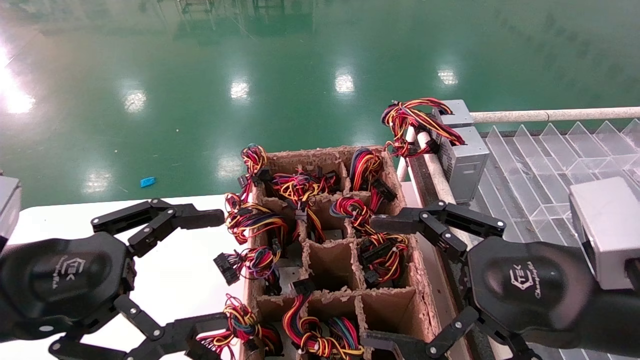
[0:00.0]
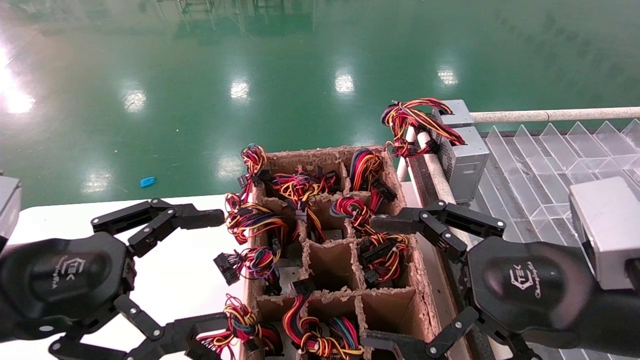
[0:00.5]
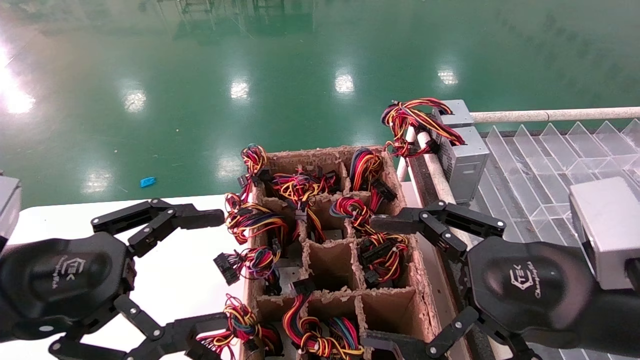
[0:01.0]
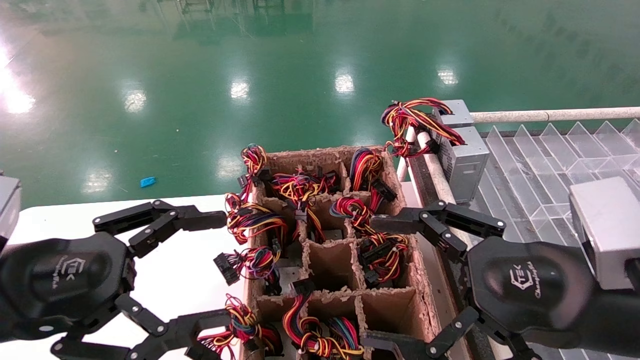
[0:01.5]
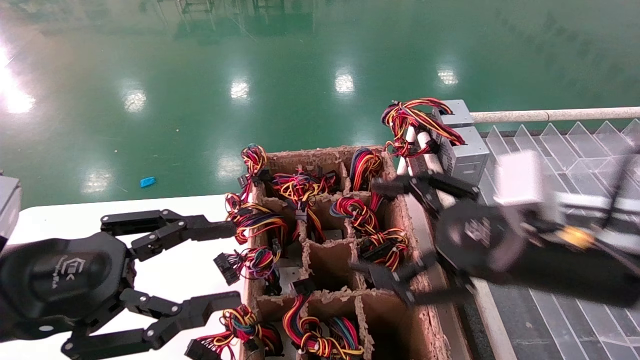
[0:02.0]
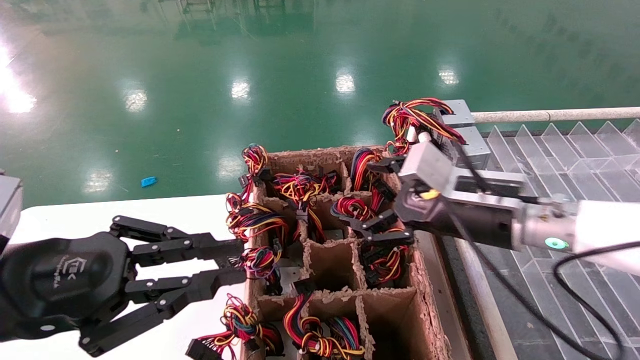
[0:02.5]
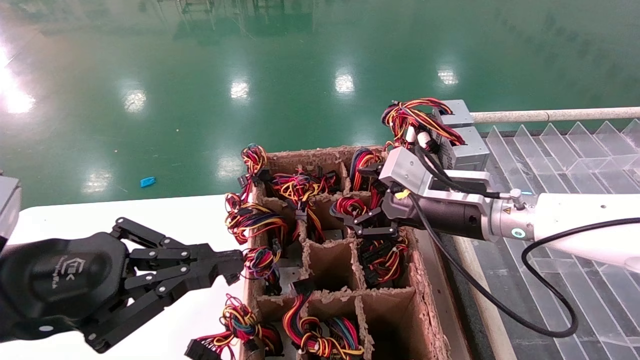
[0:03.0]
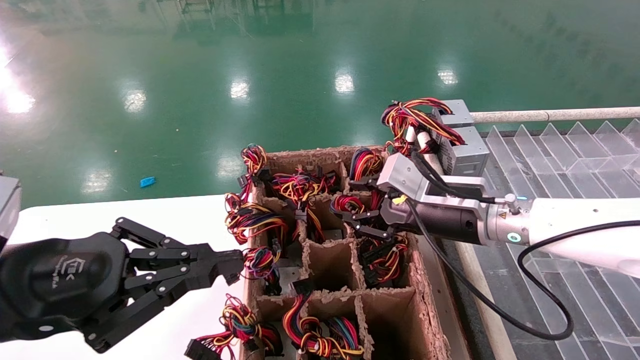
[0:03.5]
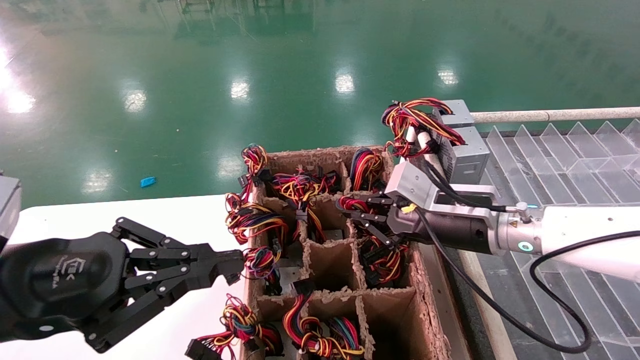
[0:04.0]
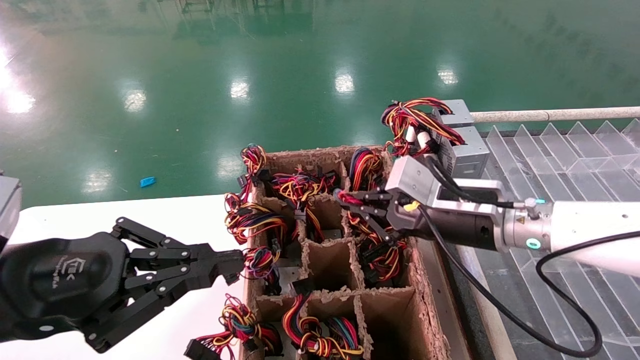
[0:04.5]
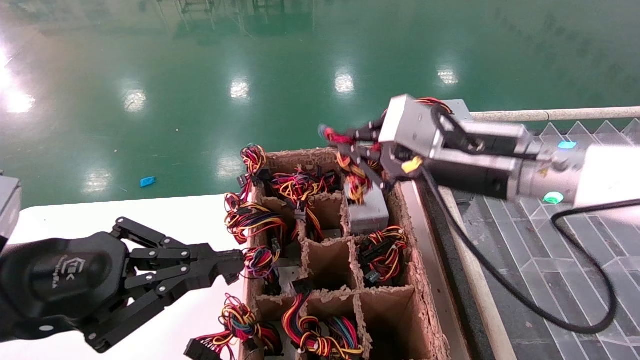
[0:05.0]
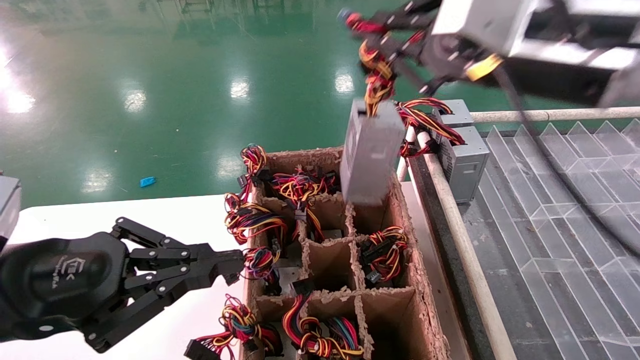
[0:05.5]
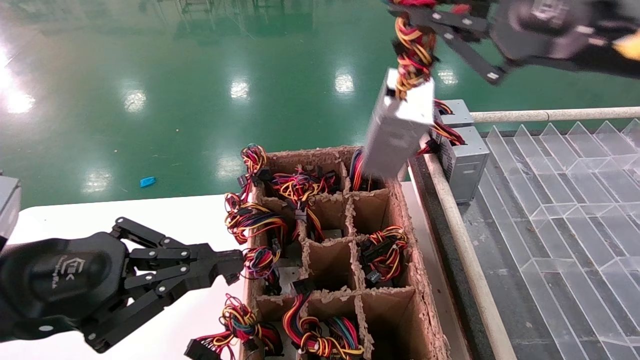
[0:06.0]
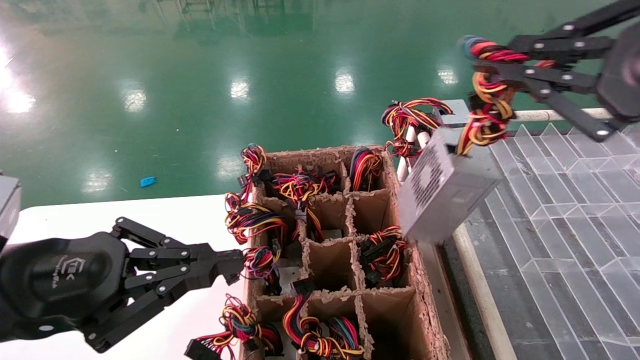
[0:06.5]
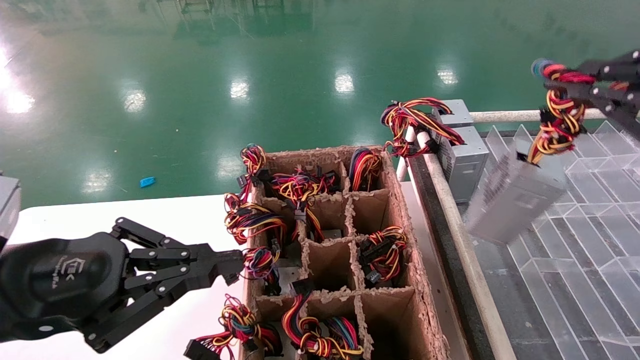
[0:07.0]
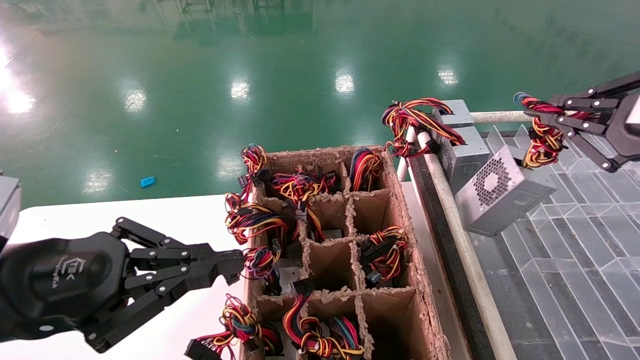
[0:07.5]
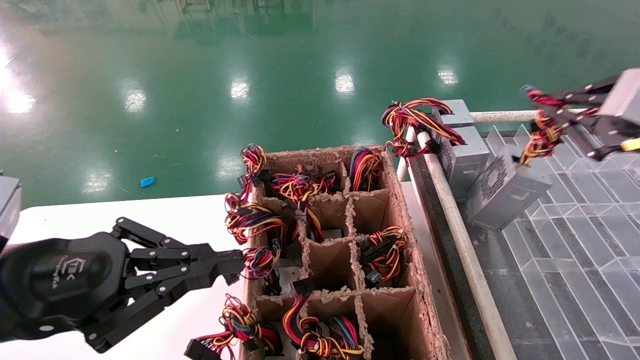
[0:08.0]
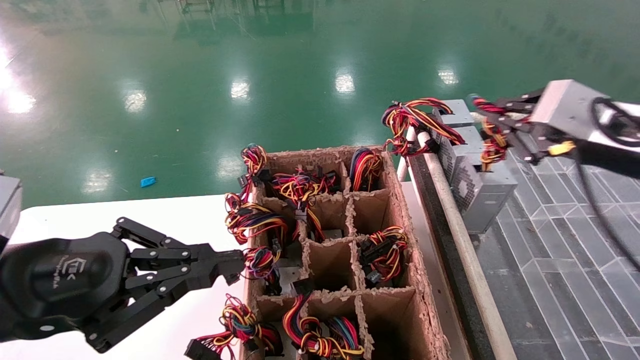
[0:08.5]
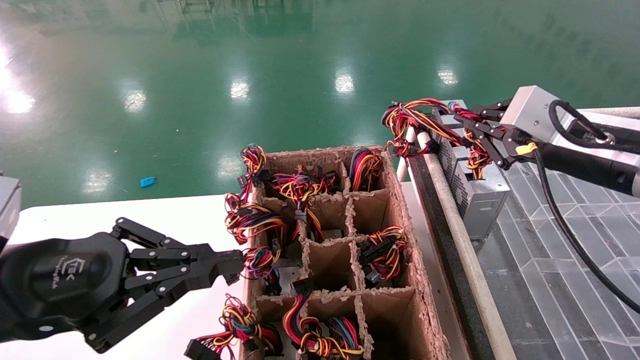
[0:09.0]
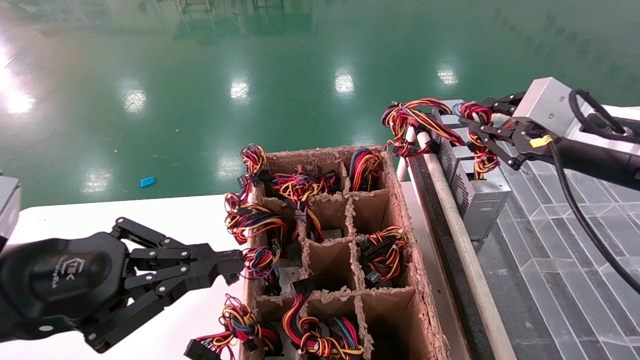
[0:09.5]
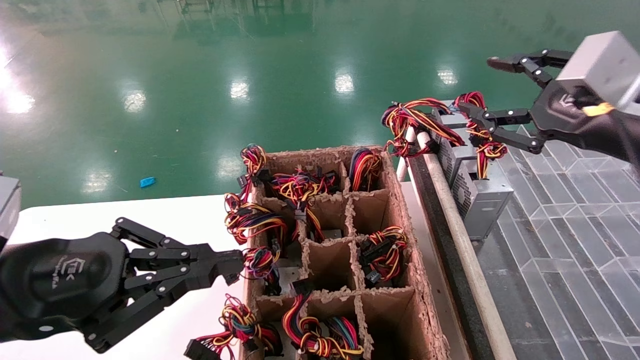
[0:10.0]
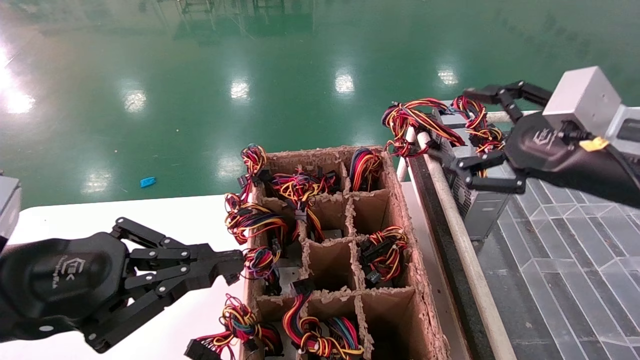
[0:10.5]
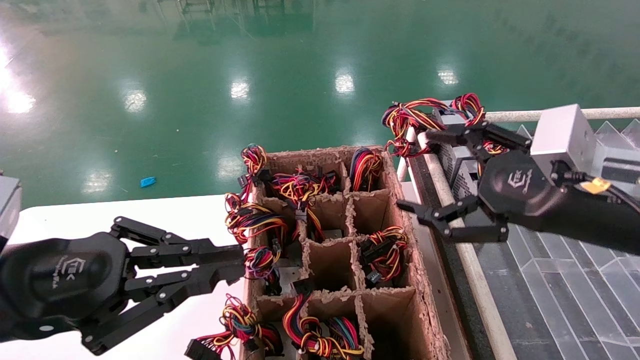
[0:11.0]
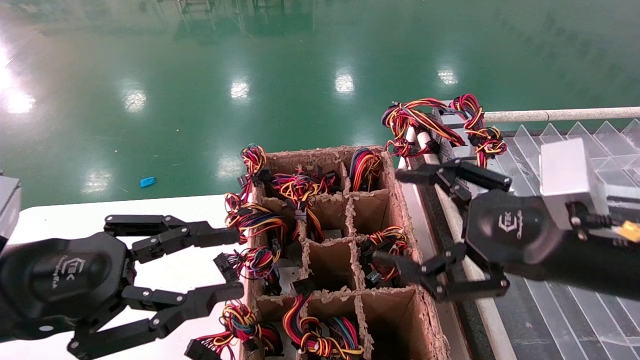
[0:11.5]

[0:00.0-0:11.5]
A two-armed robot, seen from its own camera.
Step, 0:02.5 to 0:04.0: Grab the main unit power supply from the containment box.
Step, 0:04.5 to 0:10.0: Place the main unit power supply in the designated area.
0:00.0 to 0:02.0: The right gripper shifts roughly 5 cm forward.
0:02.0 to 0:04.0: The left gripper closes up. The right gripper shifts roughly 10 cm forward, and closes.
0:04.0 to 0:06.0: The right gripper moves upward and backward, roughly 25 cm.
0:06.0 to 0:07.5: The right gripper is displaced to the right and downward by approximately 15 cm.
0:07.5 to 0:09.5: The right gripper is displaced forward and to the left by roughly 10 cm.
0:09.5 to 0:11.5: The right gripper goes about 10 cm backward, to the left and downward, and opens up.

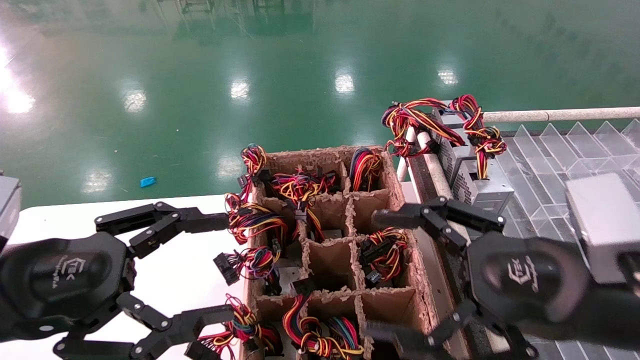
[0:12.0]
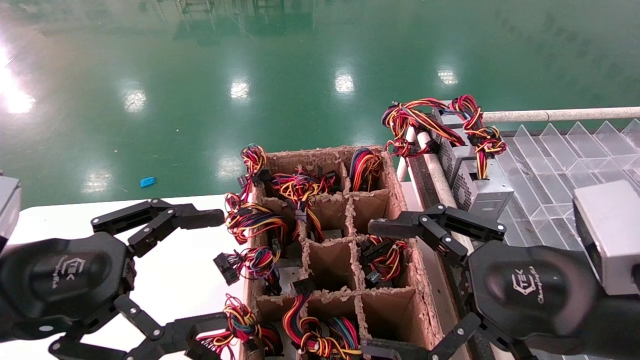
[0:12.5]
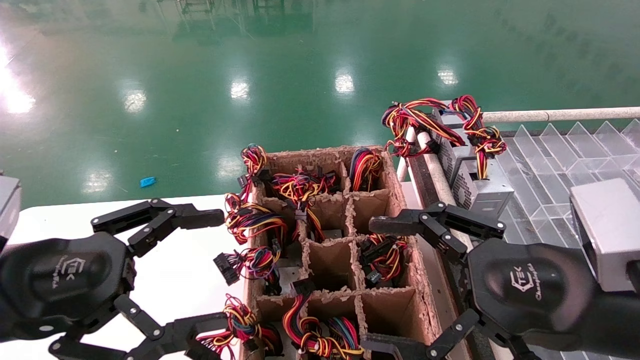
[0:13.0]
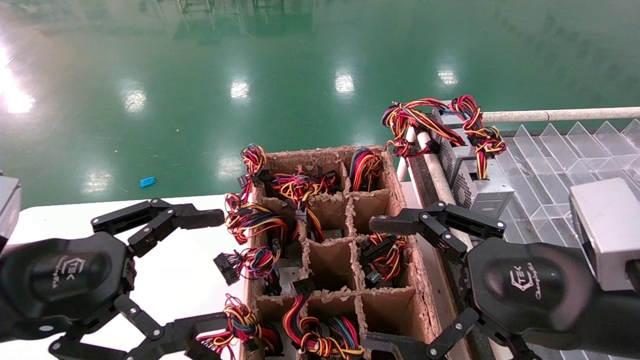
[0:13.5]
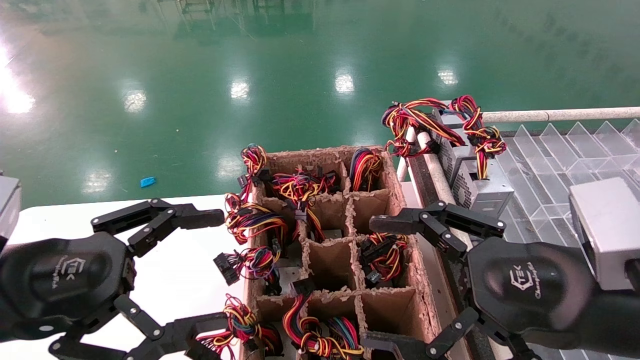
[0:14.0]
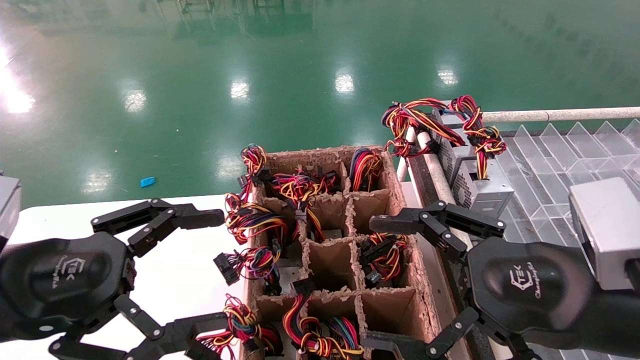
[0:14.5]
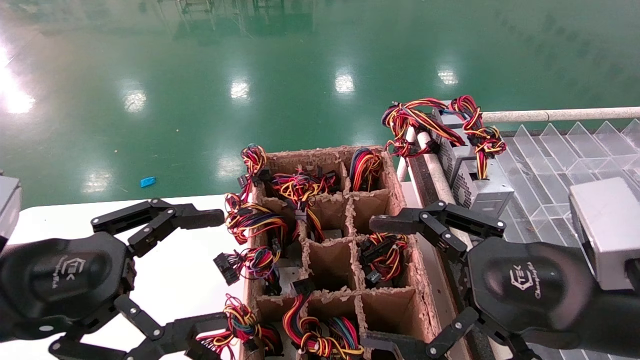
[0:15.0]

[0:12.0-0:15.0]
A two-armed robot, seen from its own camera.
0:12.0 to 0:15.0: Neither gripper changes place.
